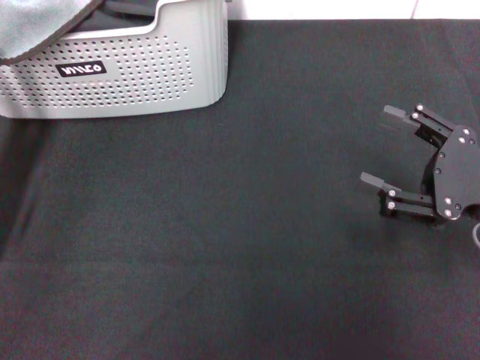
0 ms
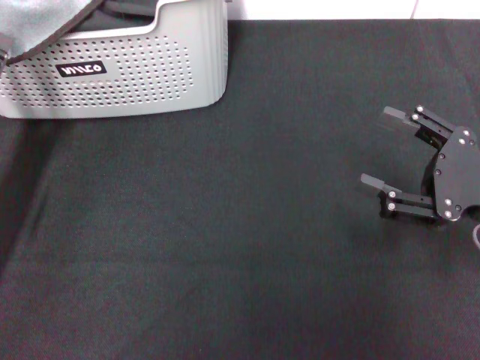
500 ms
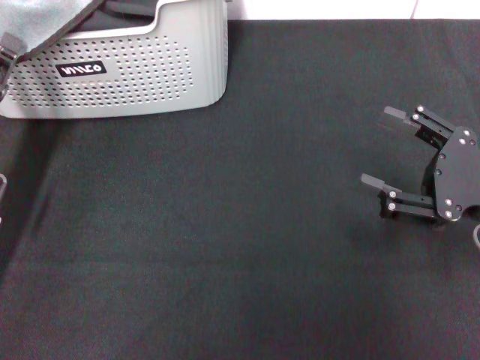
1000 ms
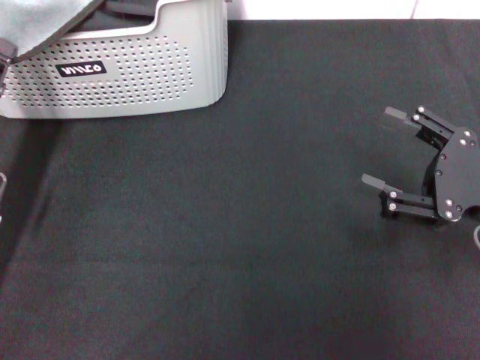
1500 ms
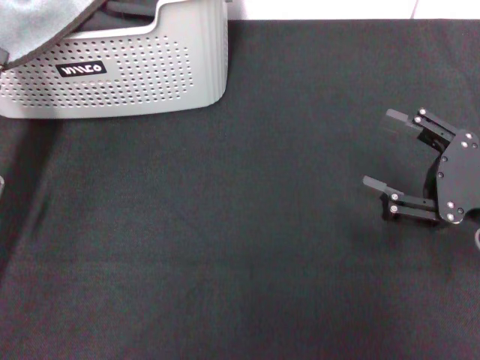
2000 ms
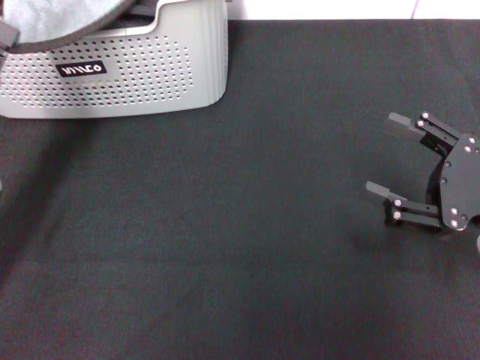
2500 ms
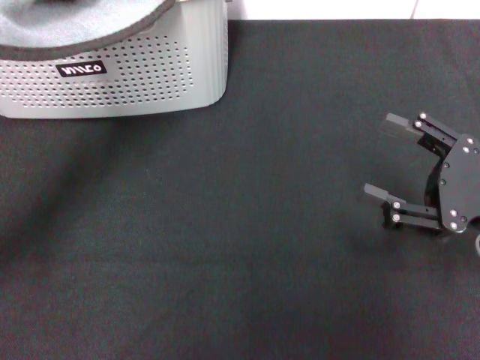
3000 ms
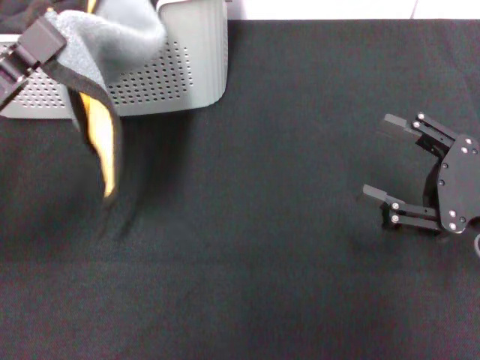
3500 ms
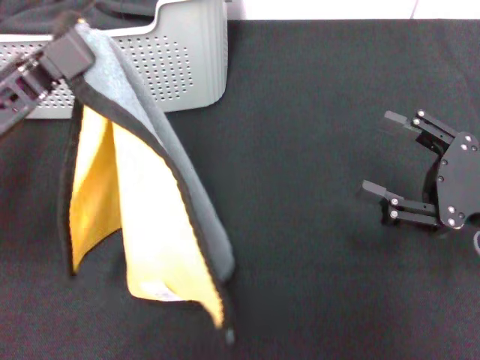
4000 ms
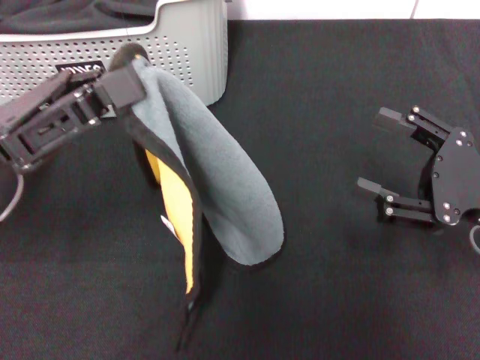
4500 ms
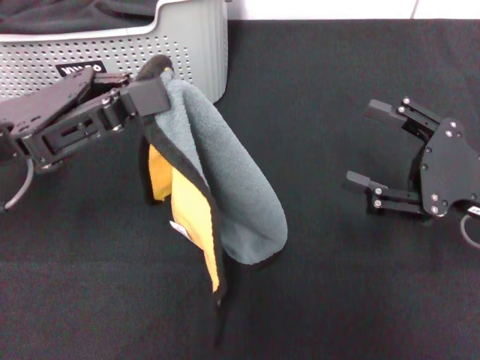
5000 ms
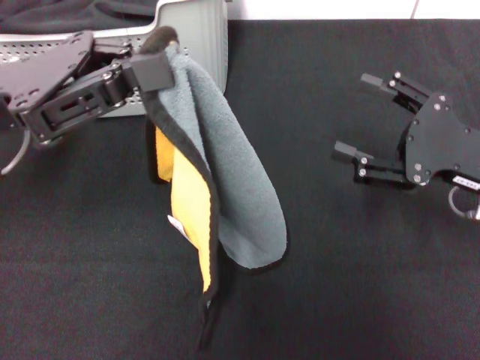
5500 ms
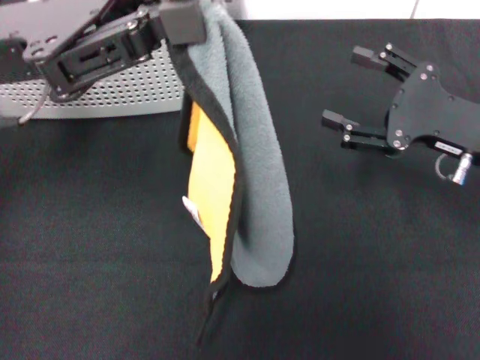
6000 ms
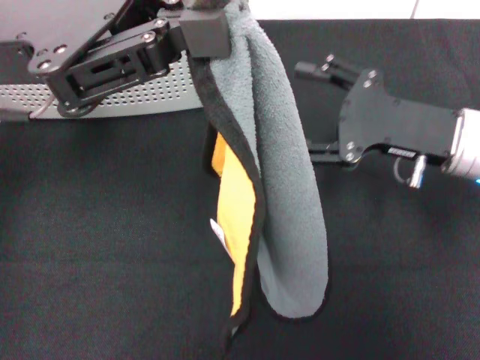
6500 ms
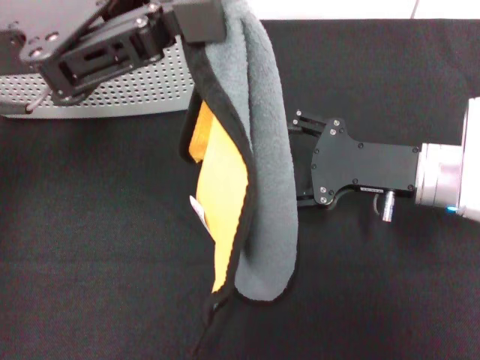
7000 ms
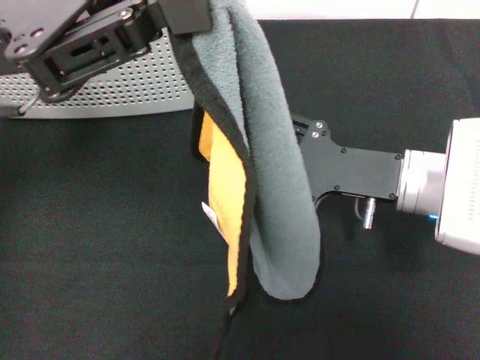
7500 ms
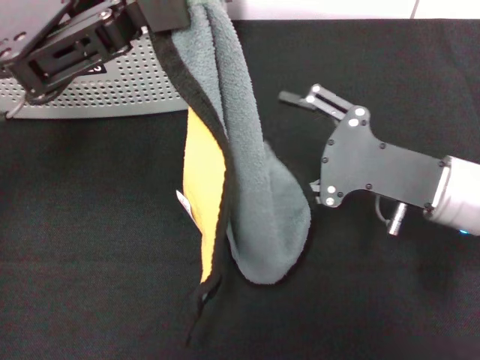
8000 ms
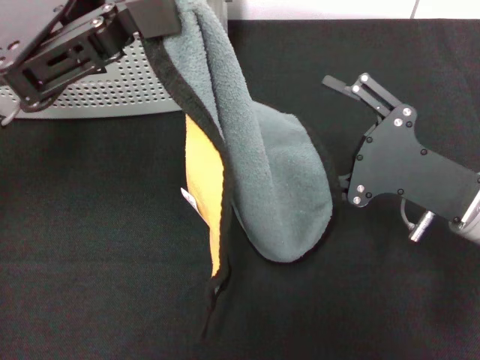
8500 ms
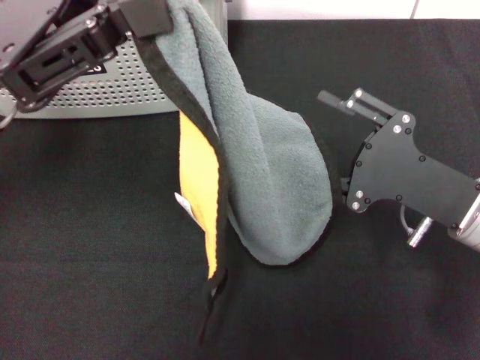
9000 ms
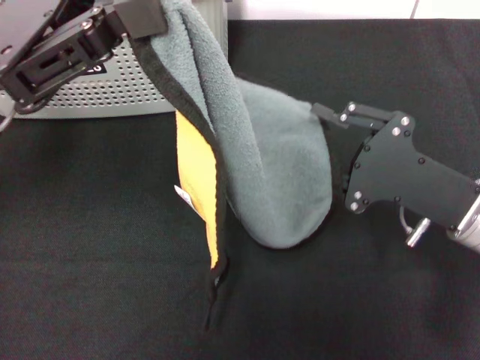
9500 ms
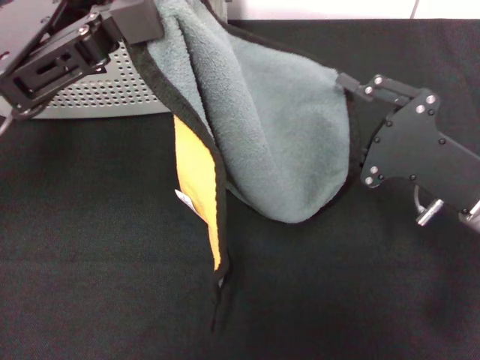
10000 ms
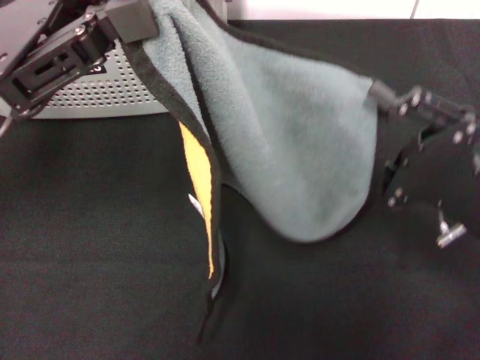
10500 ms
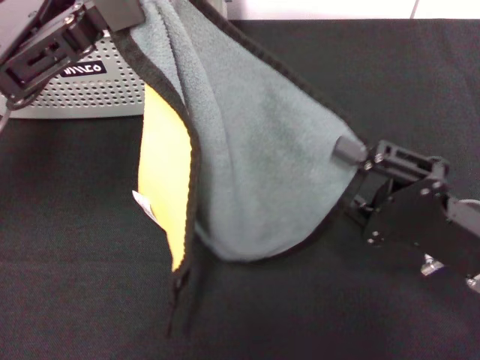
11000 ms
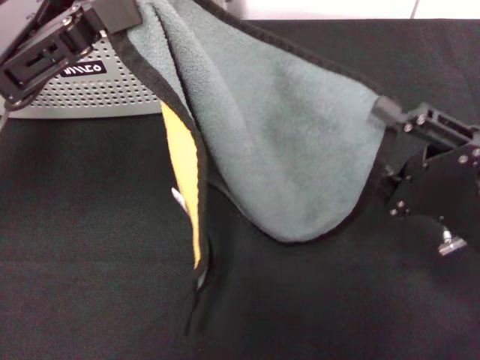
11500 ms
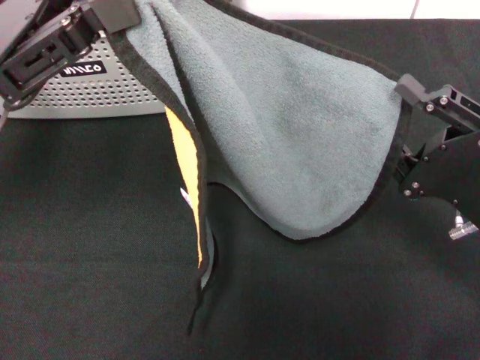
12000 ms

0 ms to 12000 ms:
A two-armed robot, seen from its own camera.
Task of the whole recording: pick up the towel from the storage box and lay it flat on the black tablecloth.
0 ms to 2000 ms: The left gripper opens, then closes once more.
2000 ms to 4000 ms: The left gripper moves upward, approximately 10 cm.
4000 ms to 6000 ms: The left gripper goes approximately 10 cm upward and forward. Meanwhile the right gripper heads forward, covering approximately 5 cm.
6000 ms to 8000 ms: The right gripper travels to the left by some 5 cm.
8000 ms to 10000 ms: The right gripper closes.

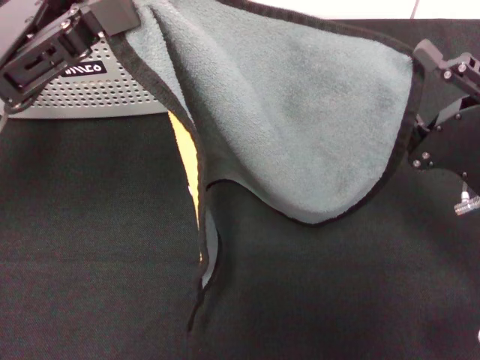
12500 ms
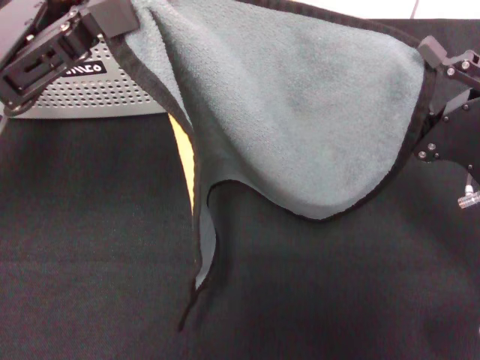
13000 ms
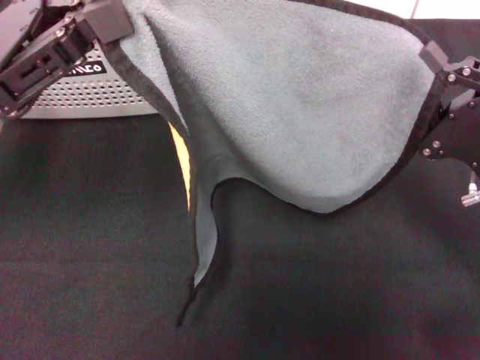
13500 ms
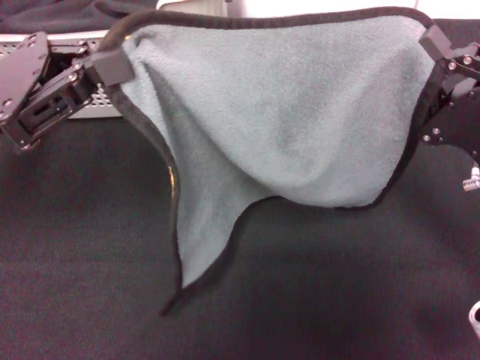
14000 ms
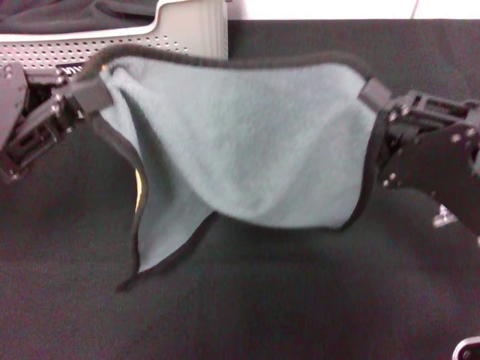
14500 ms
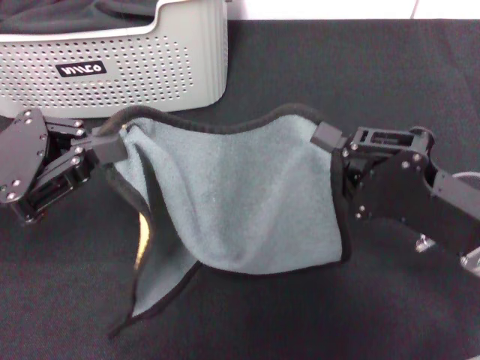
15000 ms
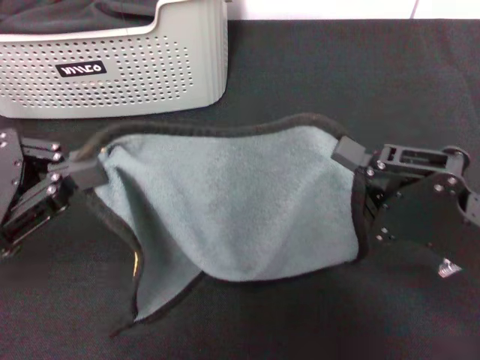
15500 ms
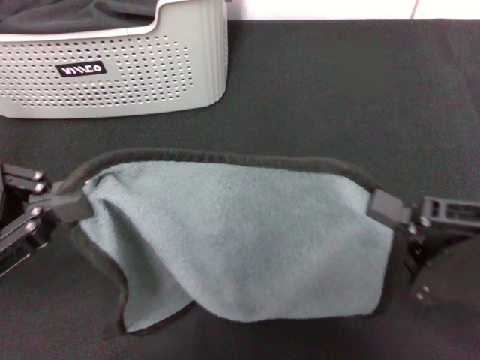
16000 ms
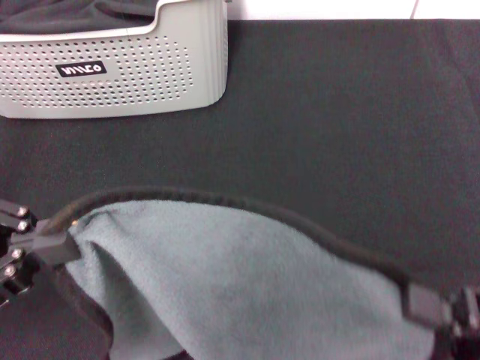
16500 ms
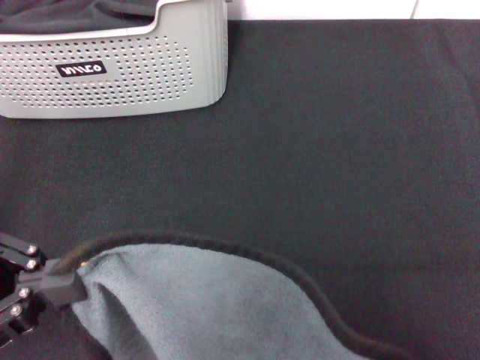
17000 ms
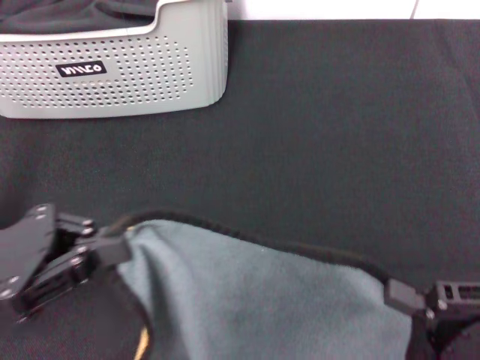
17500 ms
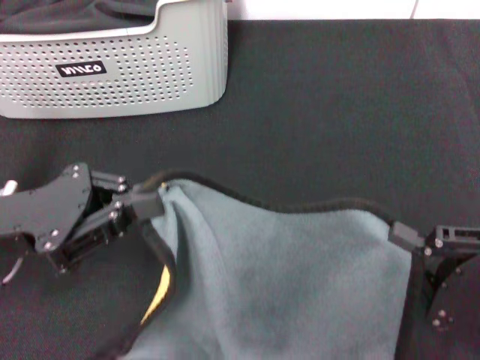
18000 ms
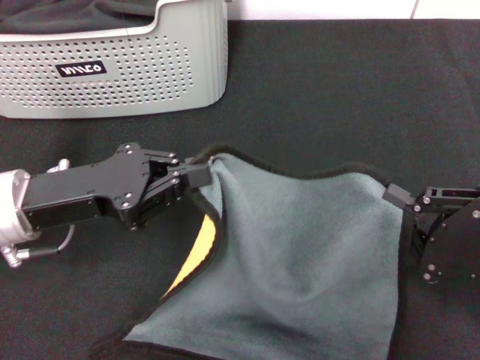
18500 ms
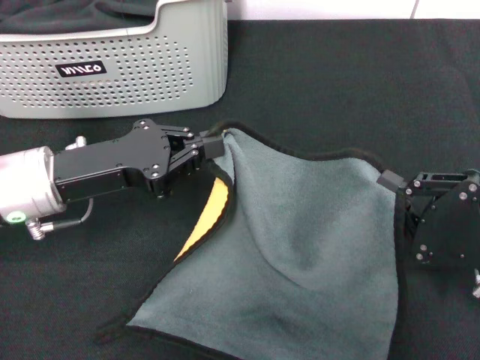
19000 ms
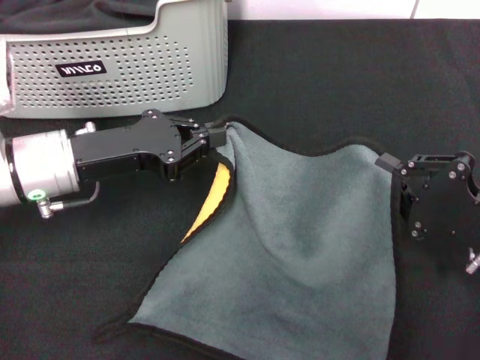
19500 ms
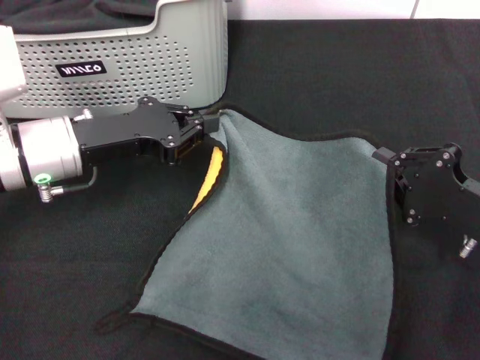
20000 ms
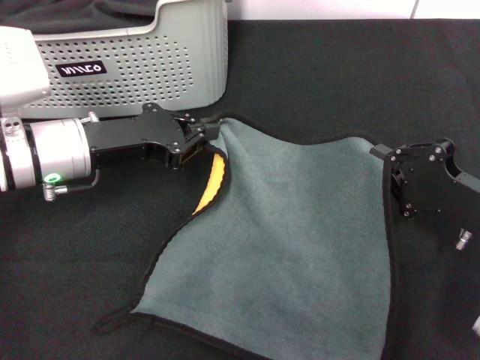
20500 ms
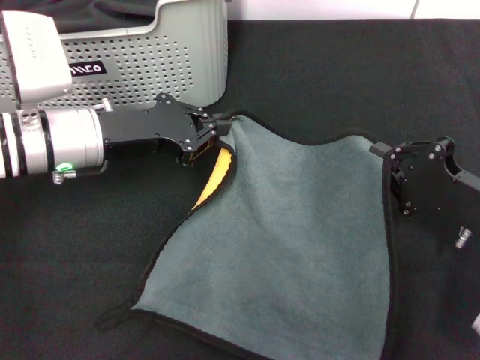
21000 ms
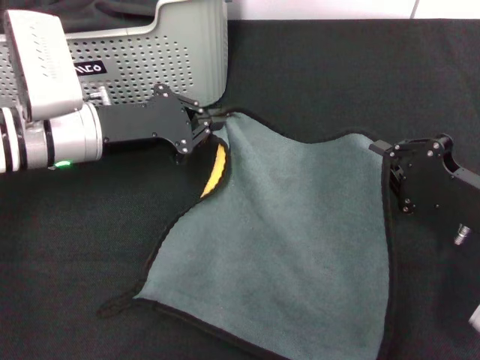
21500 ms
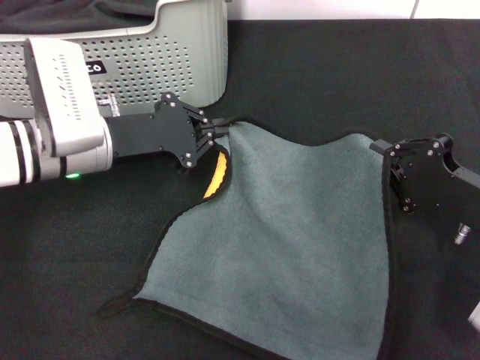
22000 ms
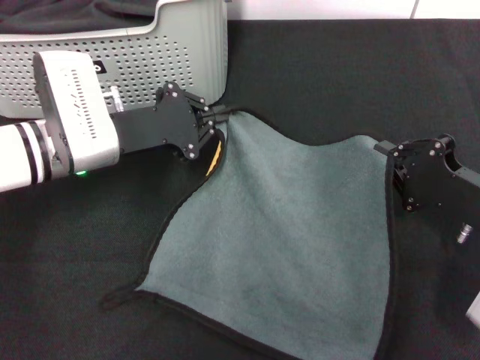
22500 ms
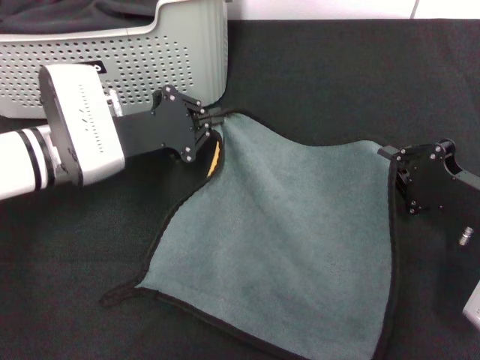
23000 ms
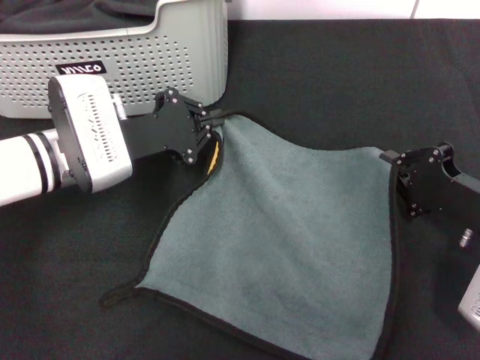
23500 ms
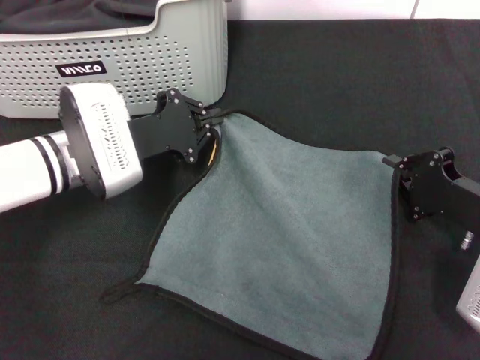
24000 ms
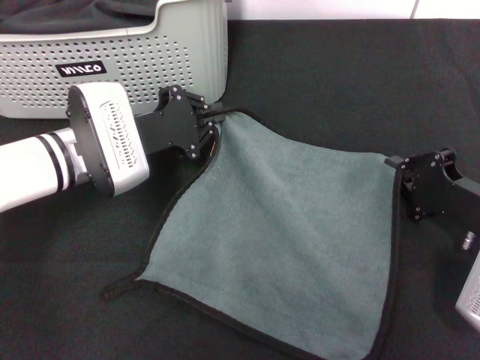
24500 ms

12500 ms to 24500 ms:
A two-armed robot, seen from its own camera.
Task of the whole recording: pick up the towel from the storage box and lay it flat on the black tablecloth.
12500 ms to 14500 ms: The right gripper closes, while the left gripper changes place by some 5 cm.
14500 ms to 16500 ms: The grippers both shift backward by roughly 10 cm.
16500 ms to 18500 ms: The right gripper goes roughly 5 cm forward; the left gripper shifts about 10 cm forward, downward and to the right.
18500 ms to 20500 ms: The two grippers go approximately 5 cm forward.
22500 ms to 24500 ms: There are only small adjustments of the grippers.

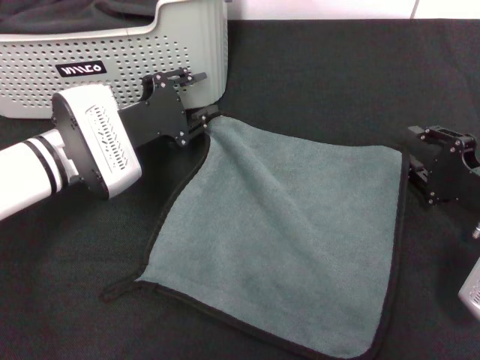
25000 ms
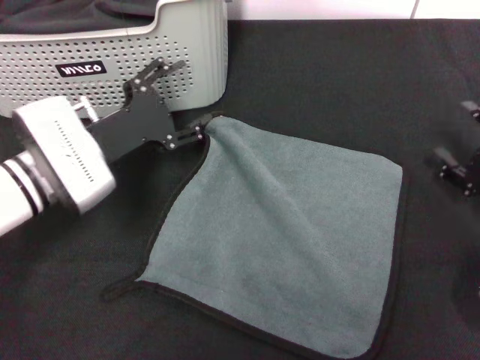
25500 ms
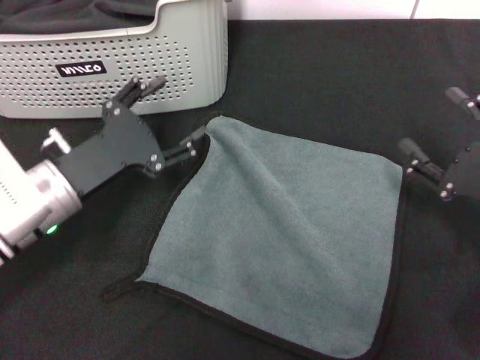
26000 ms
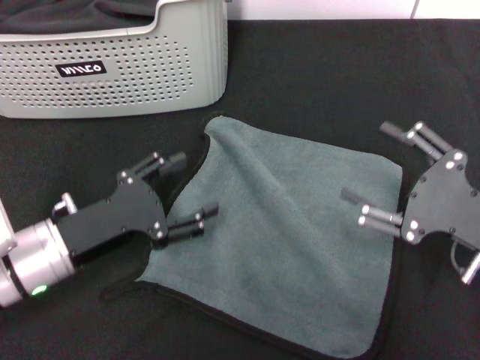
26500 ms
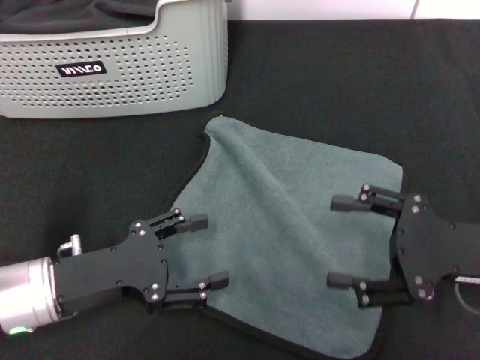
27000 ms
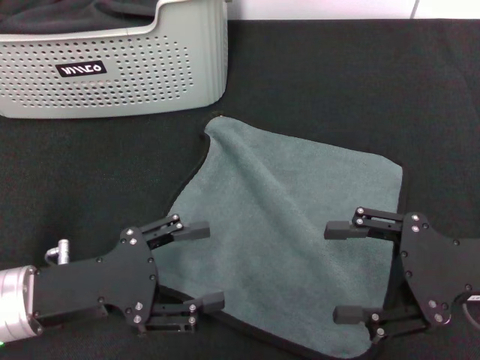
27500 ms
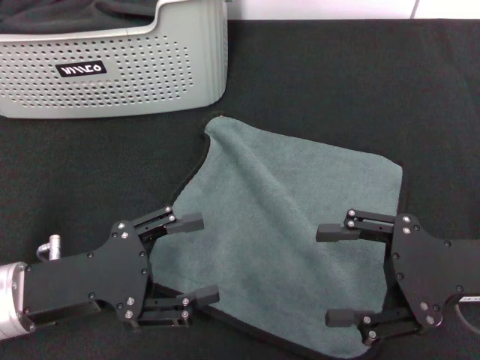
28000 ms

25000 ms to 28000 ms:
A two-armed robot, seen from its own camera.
Task of the whole recording: pick up the towel from the storage box and lay it flat on the black tablecloth.
25000 ms to 26500 ms: The left gripper is displaced backward by approximately 10 cm, and opens its fingers. Meanwhile the right gripper ends up about 5 cm from where it was, and opens up.
26500 ms to 28000 ms: The left gripper ends up some 5 cm from where it was.
